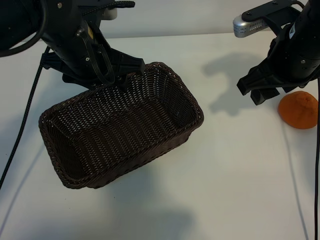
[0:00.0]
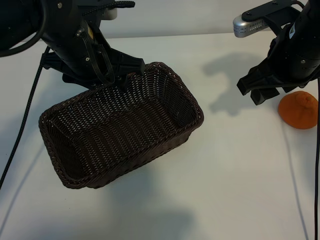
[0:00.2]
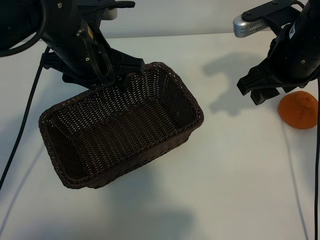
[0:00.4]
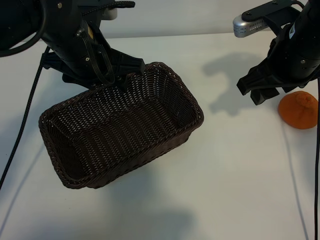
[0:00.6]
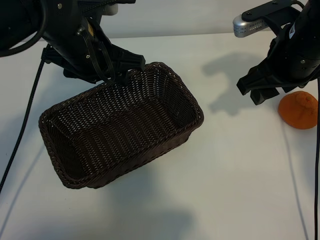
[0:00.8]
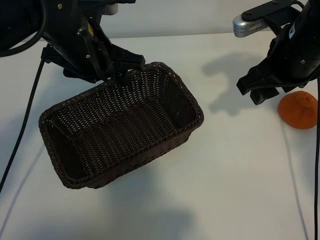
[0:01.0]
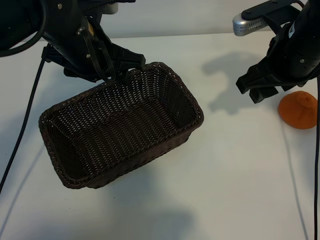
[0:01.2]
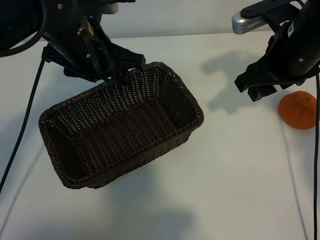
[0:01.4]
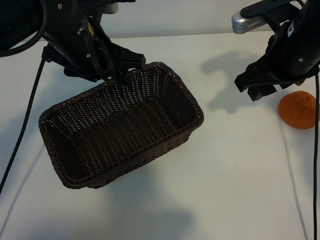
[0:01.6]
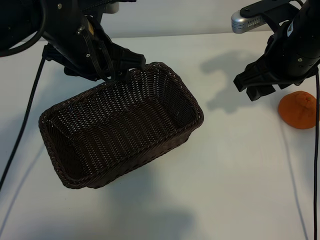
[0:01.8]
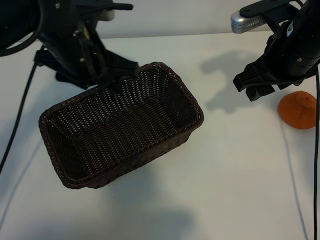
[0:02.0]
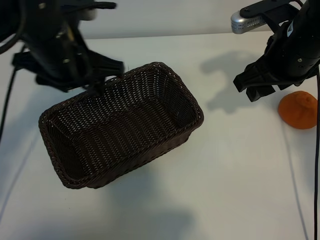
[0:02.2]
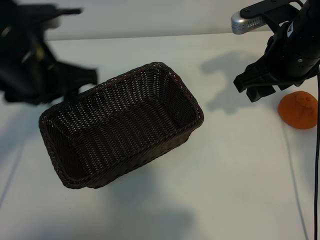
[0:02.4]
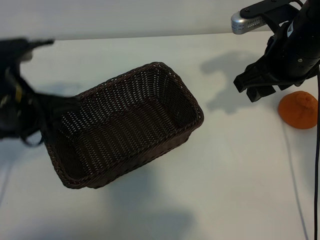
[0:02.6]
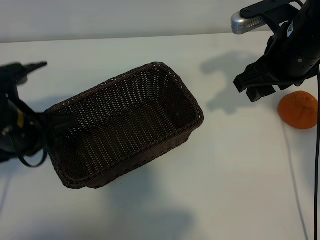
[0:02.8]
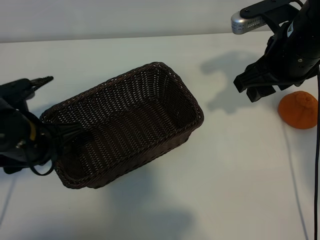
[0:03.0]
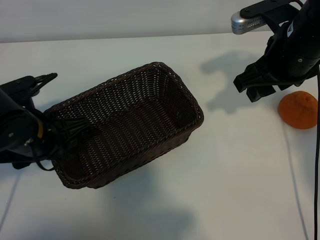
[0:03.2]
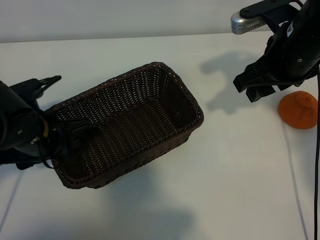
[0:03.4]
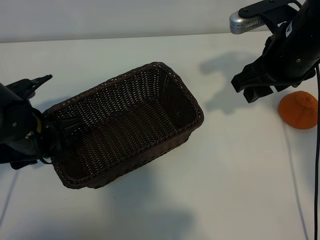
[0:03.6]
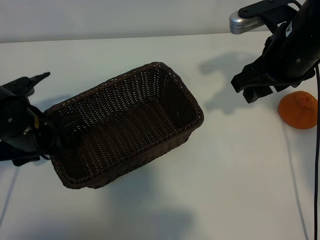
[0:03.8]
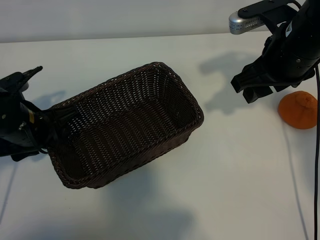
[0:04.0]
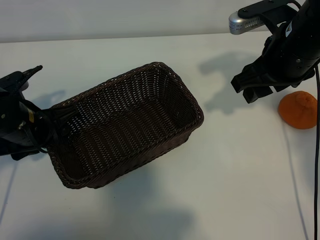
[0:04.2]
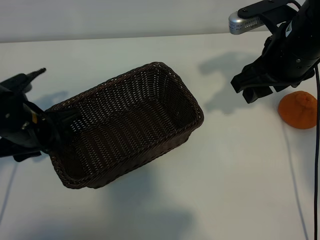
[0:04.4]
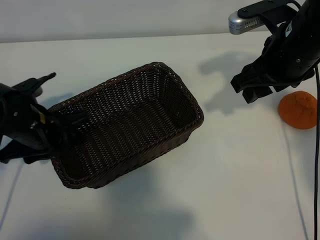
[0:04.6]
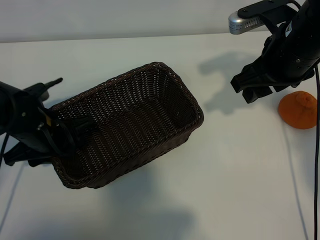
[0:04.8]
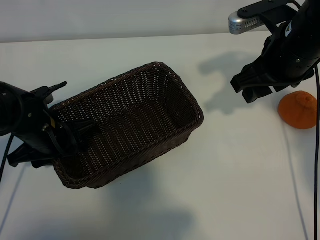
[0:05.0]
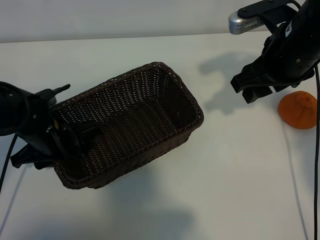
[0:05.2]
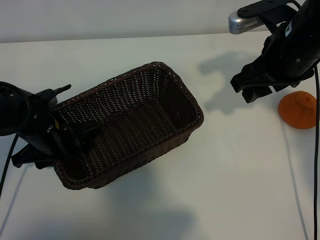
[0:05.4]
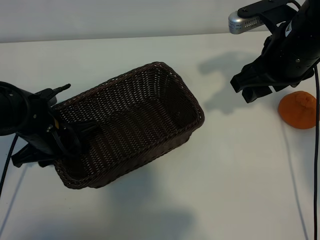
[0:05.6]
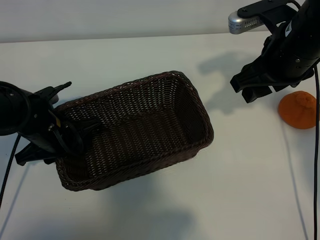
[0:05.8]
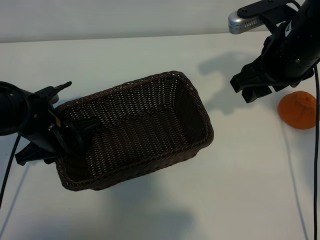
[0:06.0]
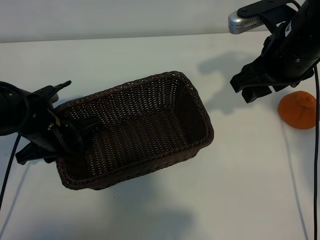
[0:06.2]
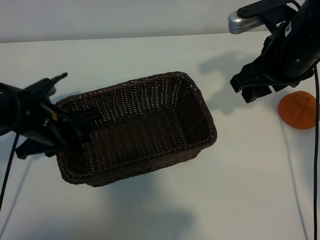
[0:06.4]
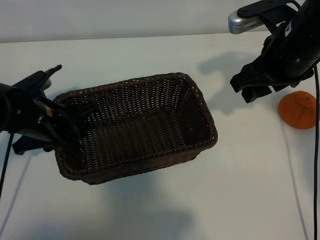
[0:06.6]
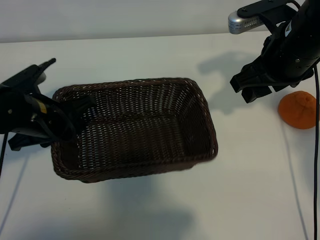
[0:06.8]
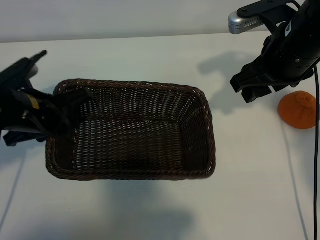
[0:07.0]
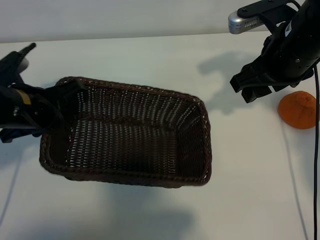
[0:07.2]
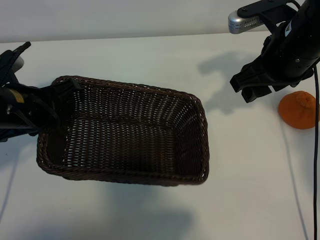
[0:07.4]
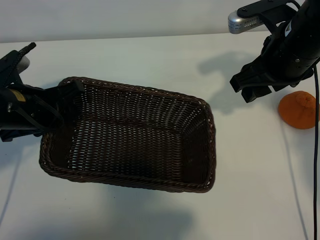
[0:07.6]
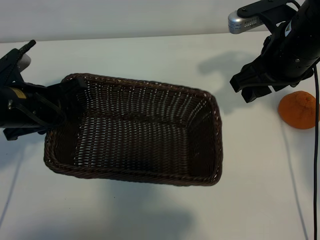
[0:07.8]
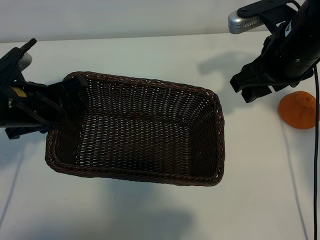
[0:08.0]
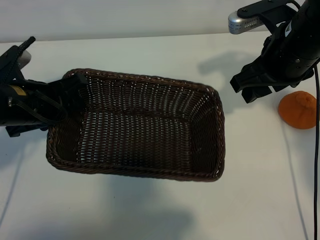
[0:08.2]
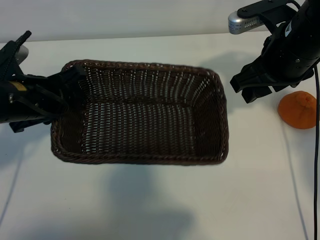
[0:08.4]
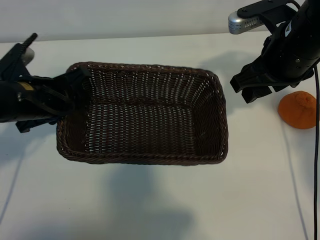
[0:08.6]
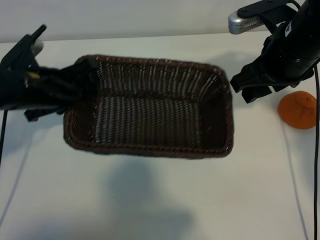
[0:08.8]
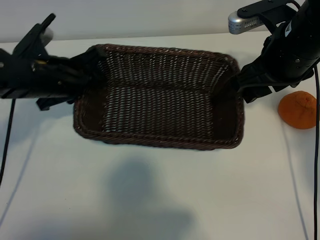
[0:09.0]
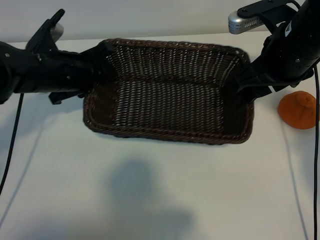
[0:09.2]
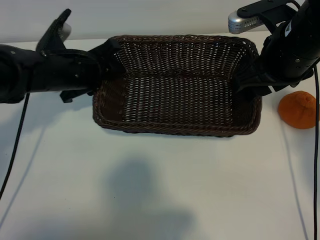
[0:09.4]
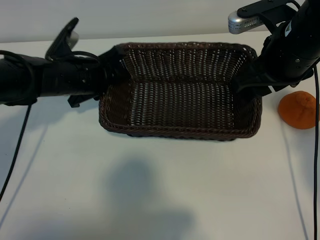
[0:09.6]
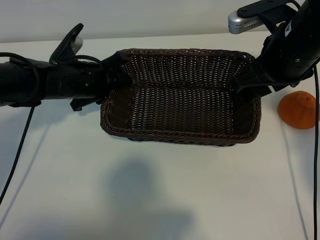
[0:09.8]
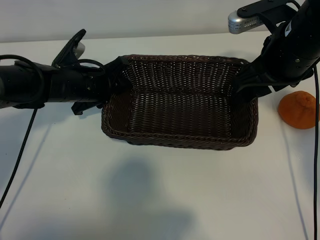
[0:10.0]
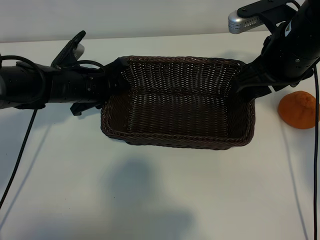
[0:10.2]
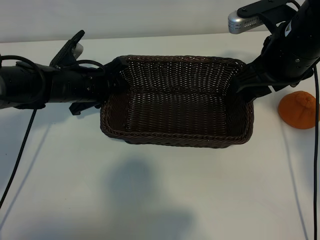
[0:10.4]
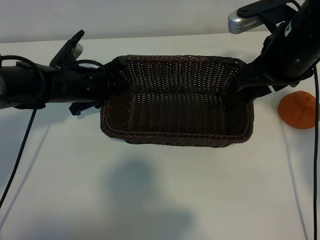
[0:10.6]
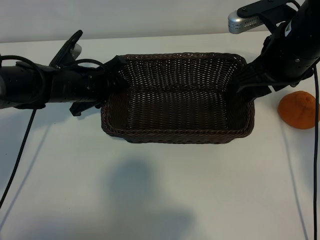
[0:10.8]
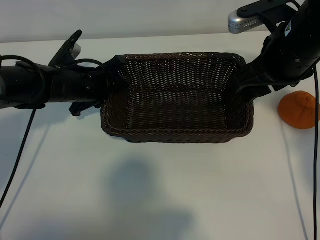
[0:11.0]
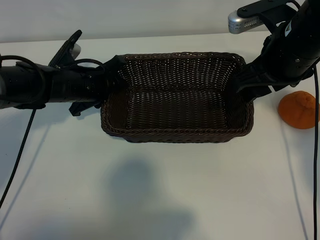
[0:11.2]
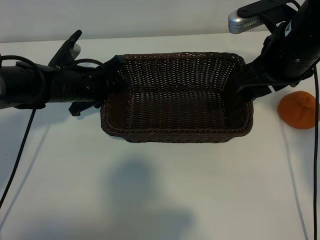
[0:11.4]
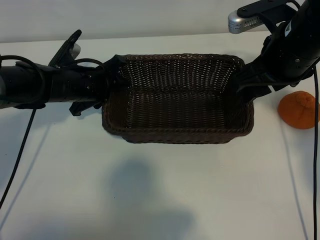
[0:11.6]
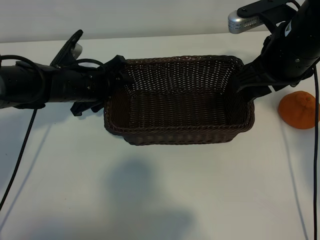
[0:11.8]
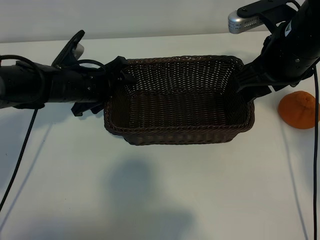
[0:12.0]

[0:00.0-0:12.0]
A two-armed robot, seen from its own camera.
Task of the whole recording: pick up the orange and put it into the basket.
Step, 0:00.8 to 0:05.6: Grasp the basket with left gripper.
Step, 0:06.0 to 0:11.6: Place the basket in the center of view with left gripper.

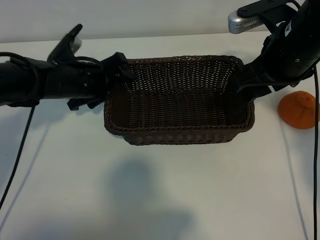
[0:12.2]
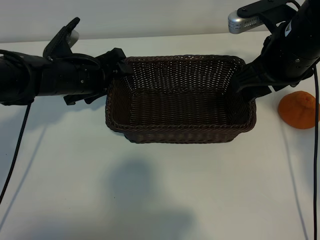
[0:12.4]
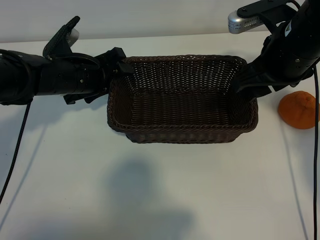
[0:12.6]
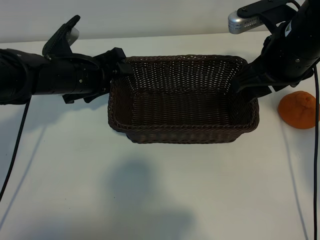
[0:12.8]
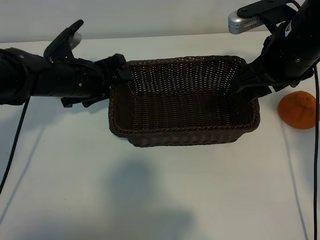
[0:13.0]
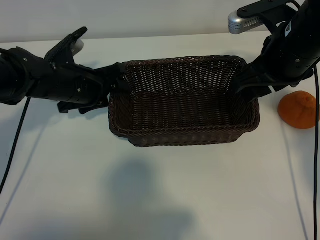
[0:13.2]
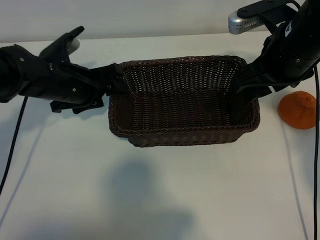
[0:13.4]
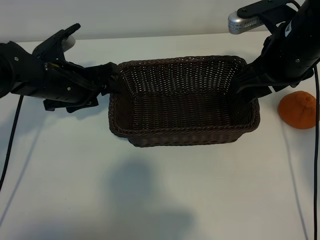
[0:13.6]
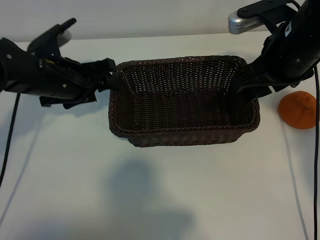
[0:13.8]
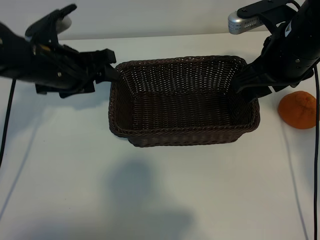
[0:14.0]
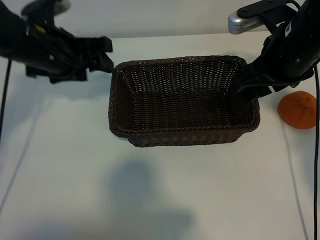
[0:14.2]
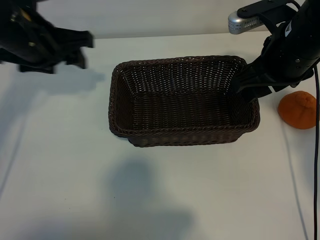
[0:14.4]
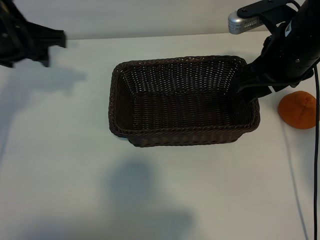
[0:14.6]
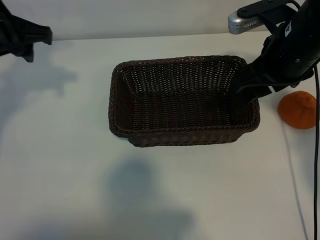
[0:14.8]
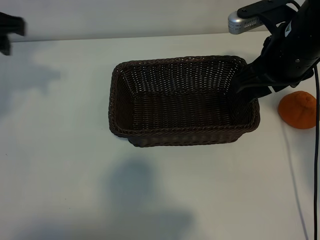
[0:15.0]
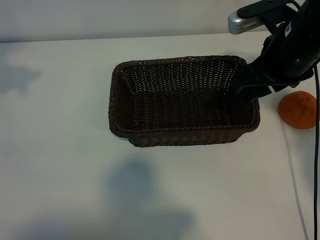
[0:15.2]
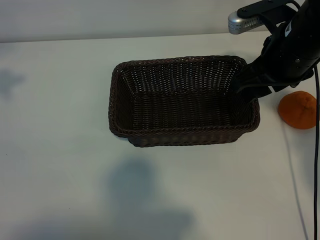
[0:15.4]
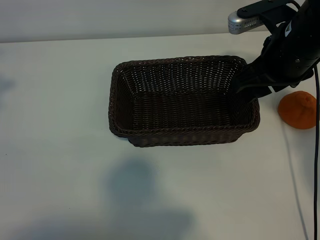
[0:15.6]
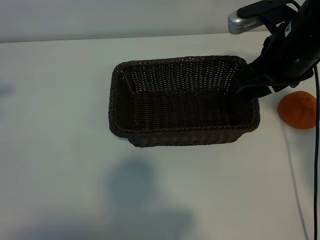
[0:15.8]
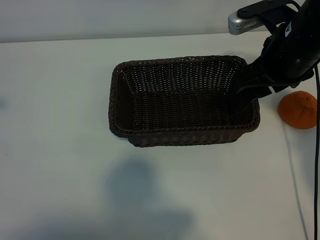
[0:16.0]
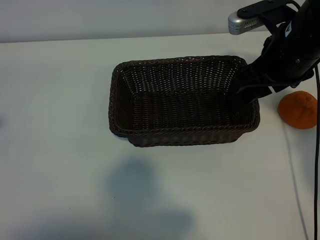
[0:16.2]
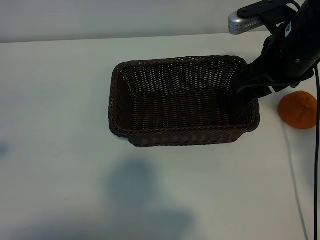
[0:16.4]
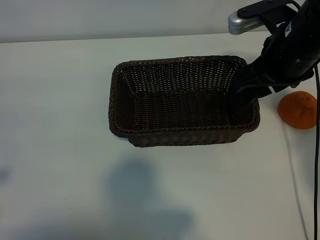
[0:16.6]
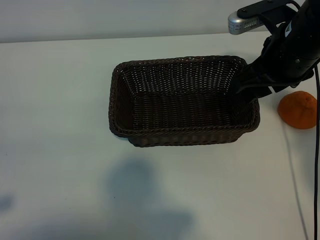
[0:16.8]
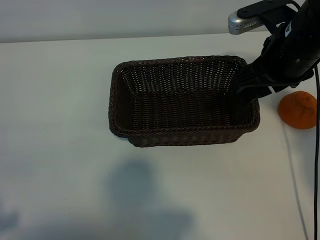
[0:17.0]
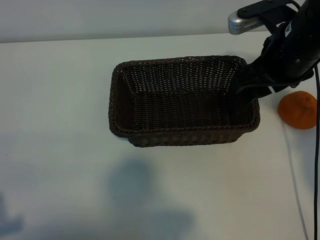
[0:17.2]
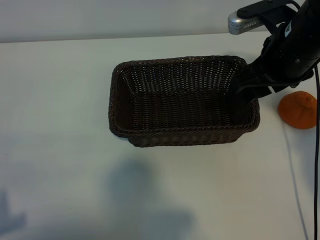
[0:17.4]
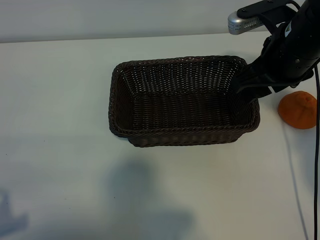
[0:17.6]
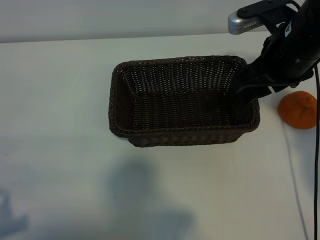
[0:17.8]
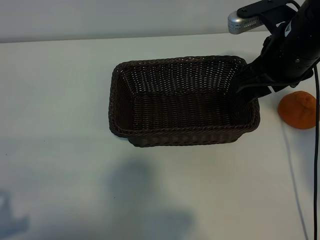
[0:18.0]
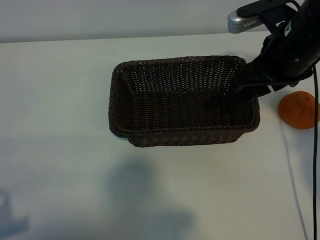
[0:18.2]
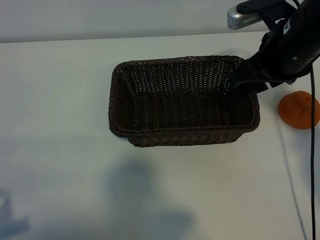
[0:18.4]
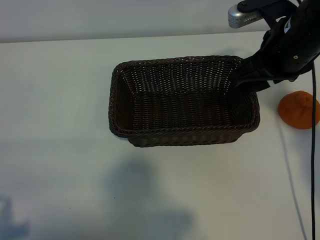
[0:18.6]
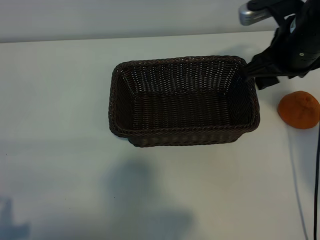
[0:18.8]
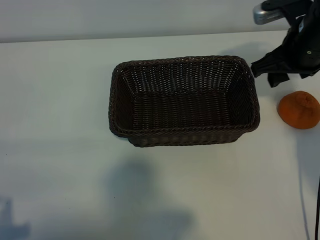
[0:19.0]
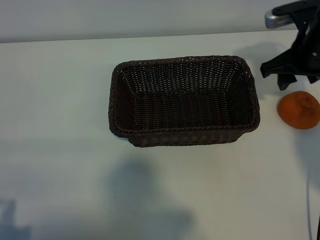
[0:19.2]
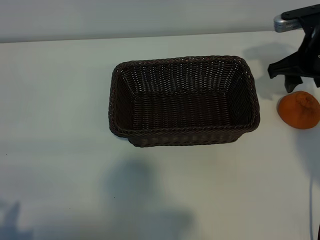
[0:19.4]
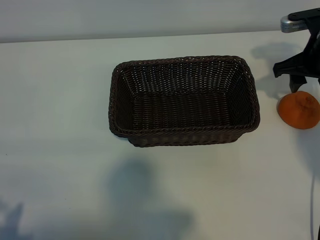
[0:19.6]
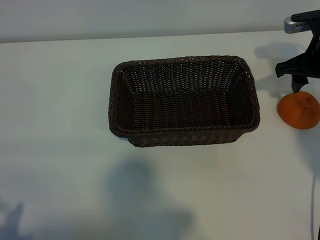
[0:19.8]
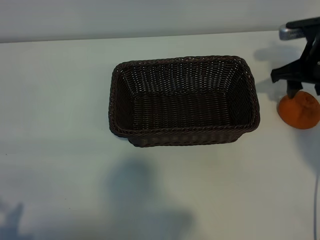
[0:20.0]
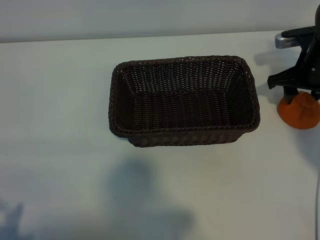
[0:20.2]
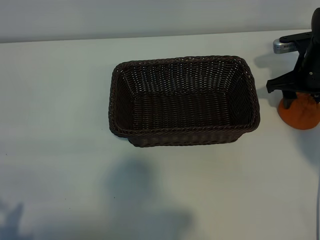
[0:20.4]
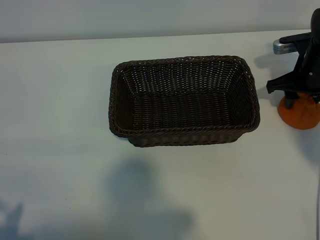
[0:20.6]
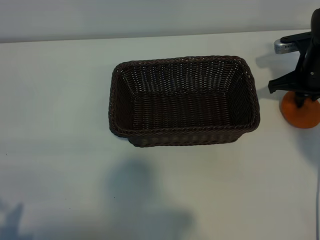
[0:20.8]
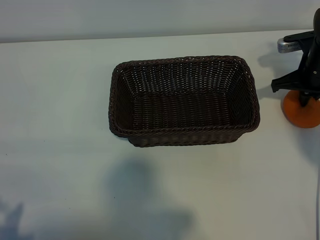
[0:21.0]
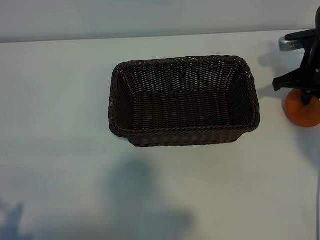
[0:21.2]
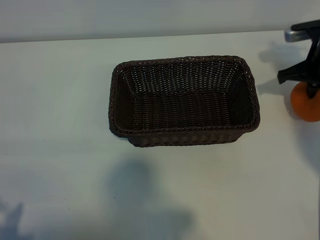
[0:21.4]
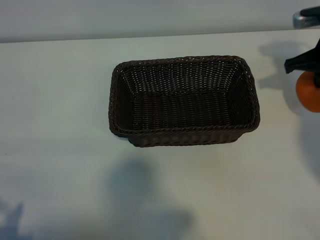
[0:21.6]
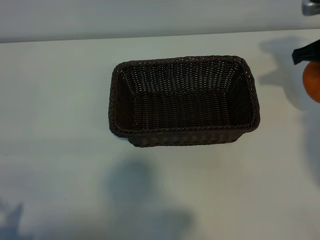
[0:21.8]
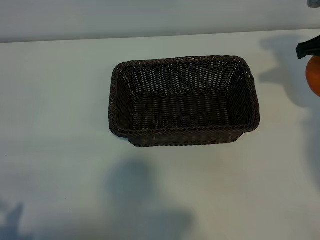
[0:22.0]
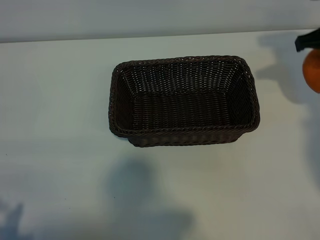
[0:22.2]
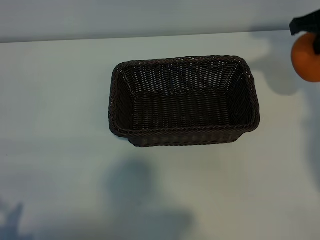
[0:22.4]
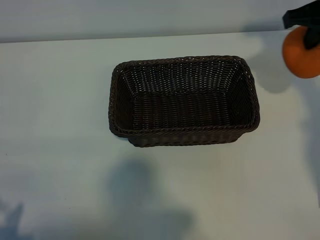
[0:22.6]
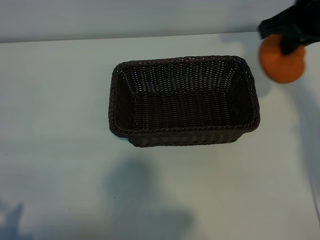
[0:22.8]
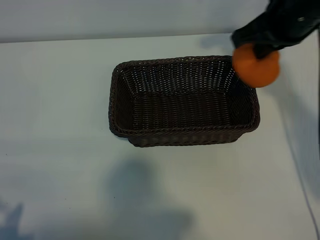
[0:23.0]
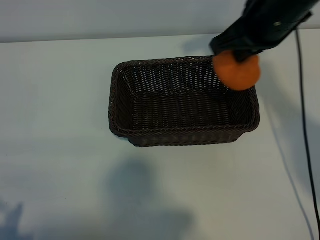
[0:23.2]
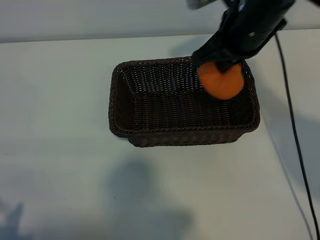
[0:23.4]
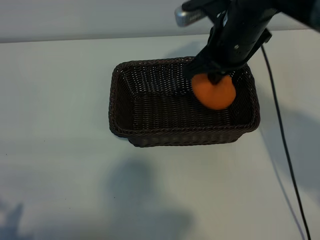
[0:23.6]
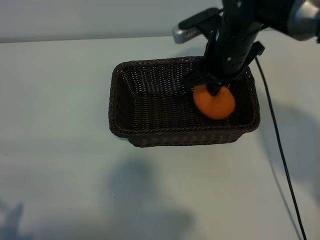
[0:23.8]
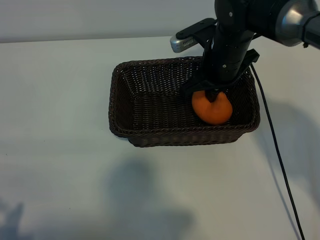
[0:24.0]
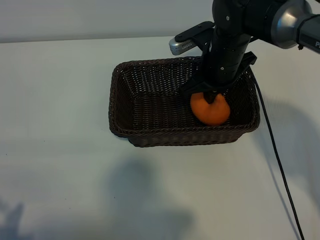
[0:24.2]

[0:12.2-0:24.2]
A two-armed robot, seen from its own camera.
Task of the whole recording: pick up the orange and put it into the basket.
Step, 0:12.2 to 0:20.8: Grasp the orange with right gripper.
